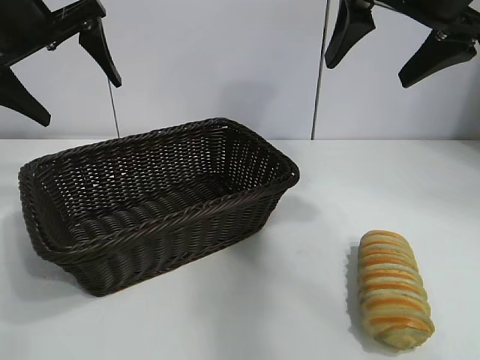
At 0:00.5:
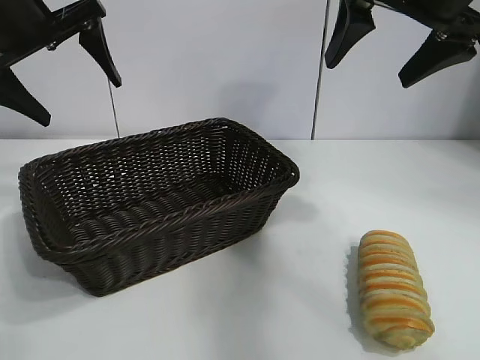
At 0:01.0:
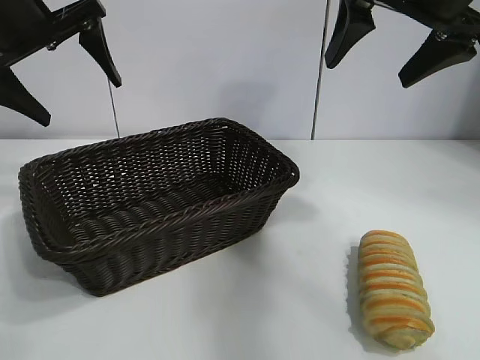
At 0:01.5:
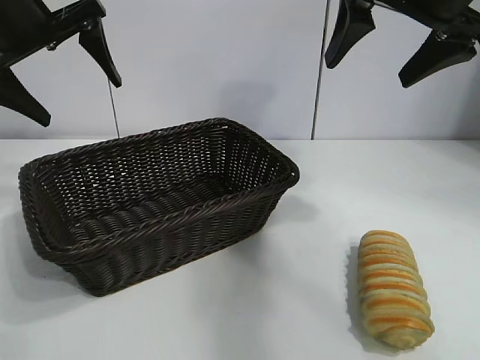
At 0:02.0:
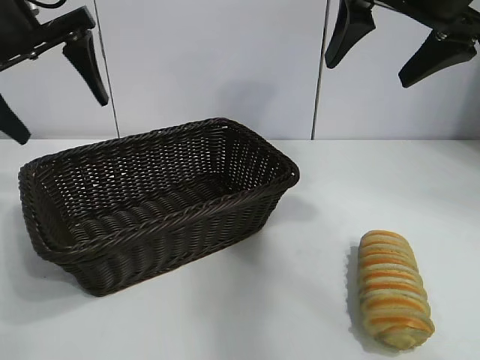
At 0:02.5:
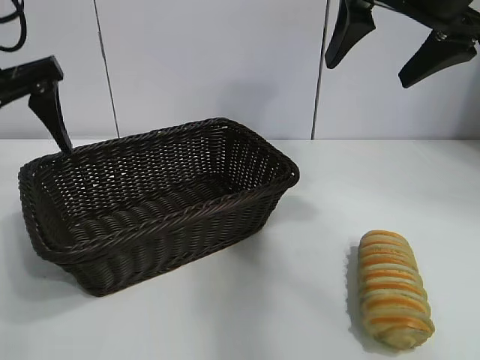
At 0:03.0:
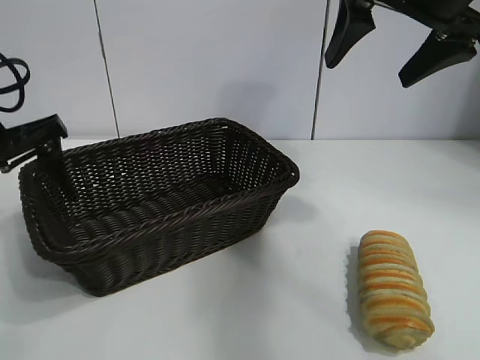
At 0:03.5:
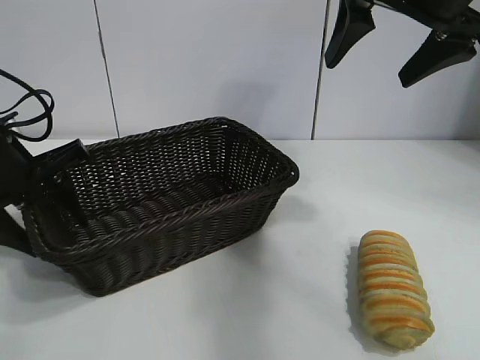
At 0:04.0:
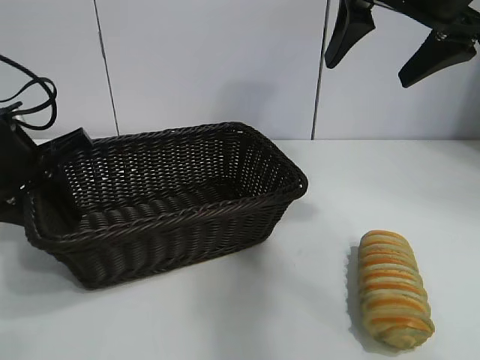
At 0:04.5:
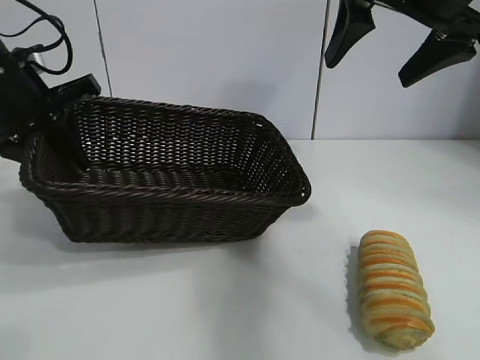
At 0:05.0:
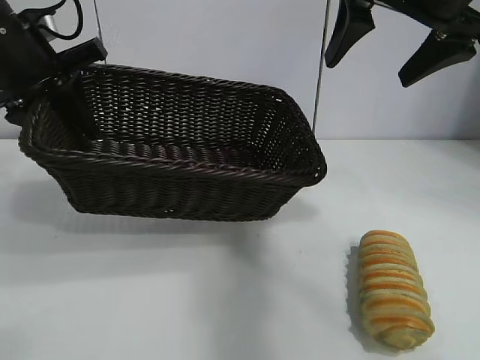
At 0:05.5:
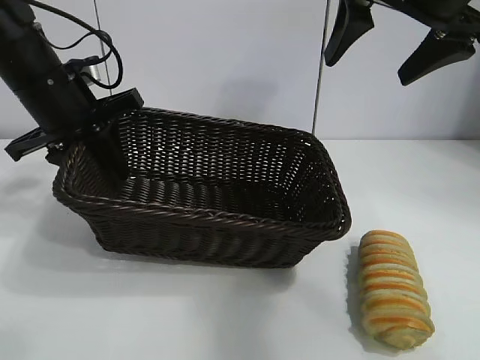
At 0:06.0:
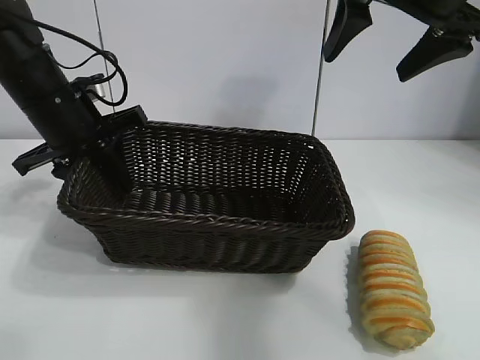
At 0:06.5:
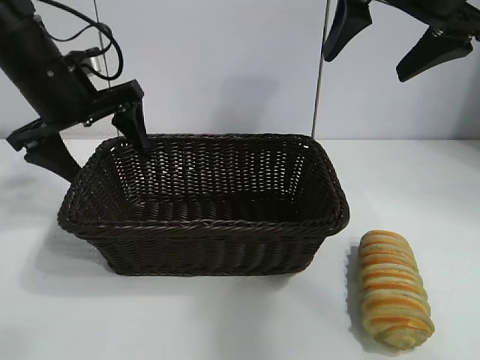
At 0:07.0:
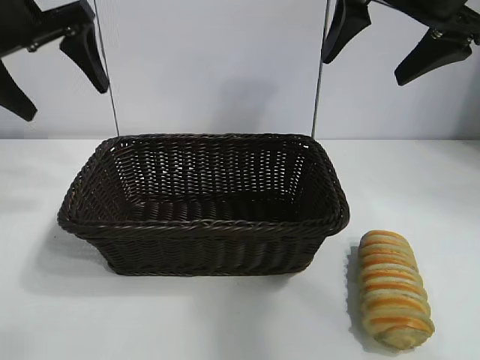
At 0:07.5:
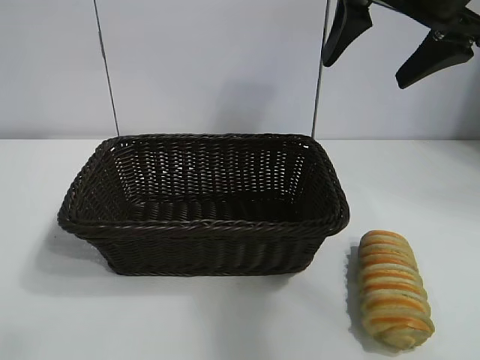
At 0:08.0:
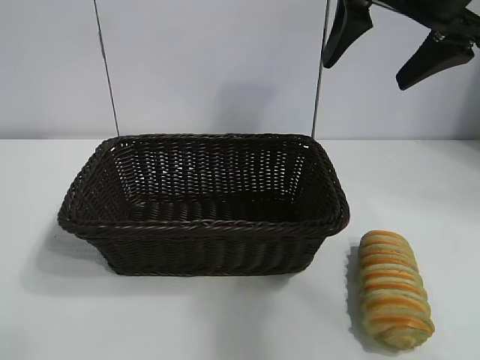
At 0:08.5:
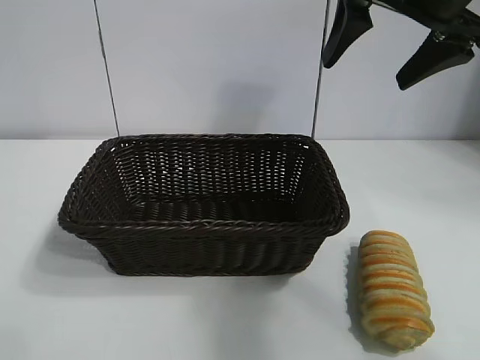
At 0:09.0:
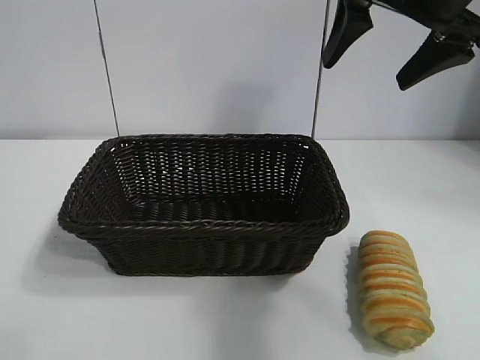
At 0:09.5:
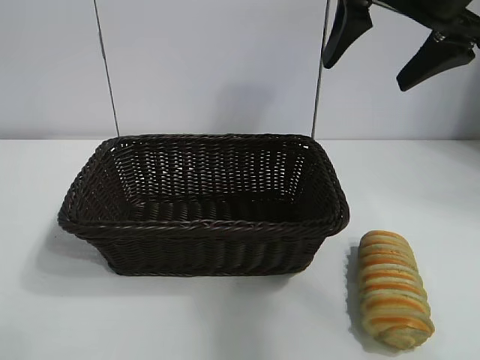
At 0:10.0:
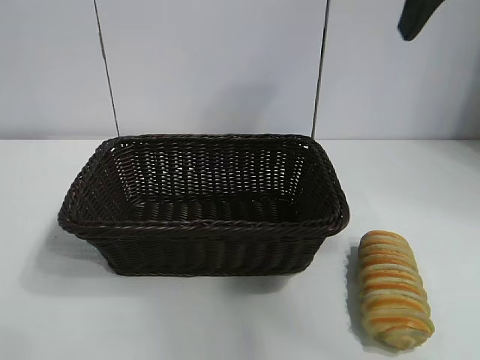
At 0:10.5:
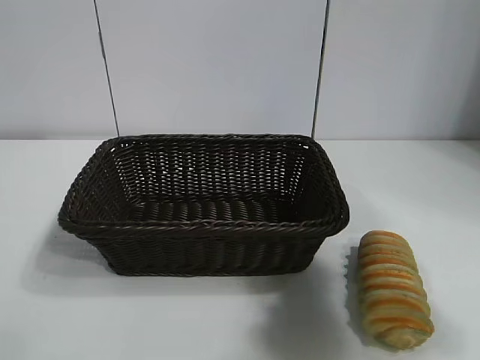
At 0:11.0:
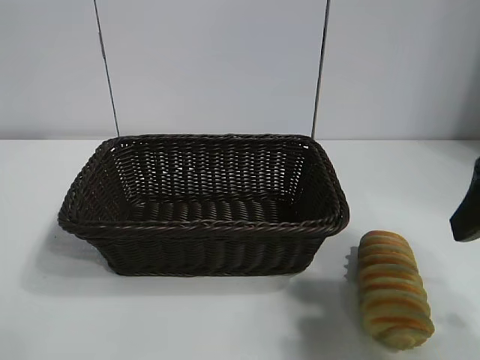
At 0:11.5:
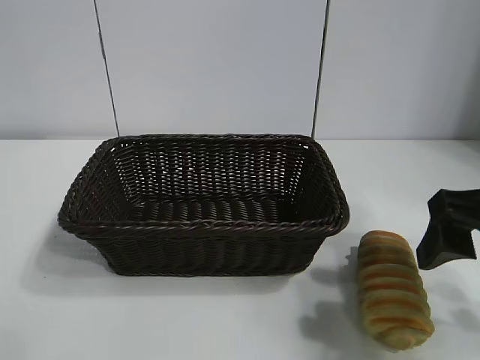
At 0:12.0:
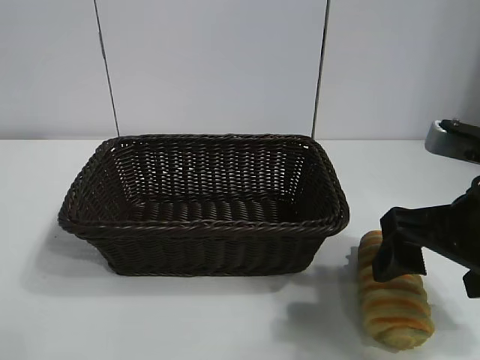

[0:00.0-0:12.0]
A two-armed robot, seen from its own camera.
Task of the whole recording: pick up the long bread and put it into the basket.
Step, 0:02.0 to 0:03.5: Grasp the basket with the left gripper.
Step, 0:04.0 to 0:06.0: Place the basket in the center of the table with the left gripper.

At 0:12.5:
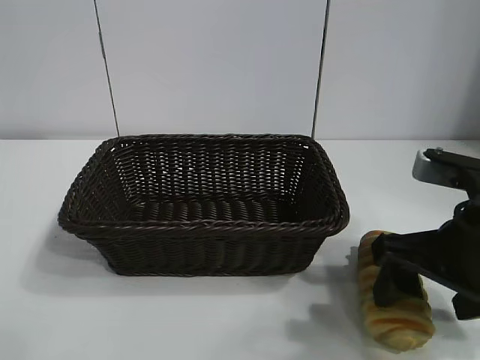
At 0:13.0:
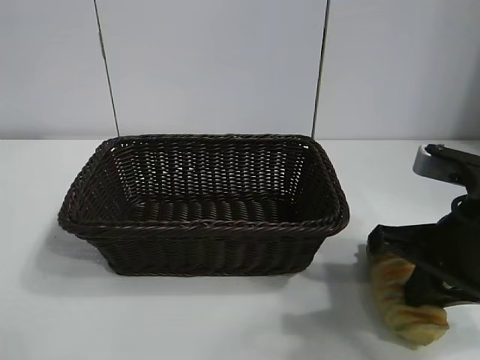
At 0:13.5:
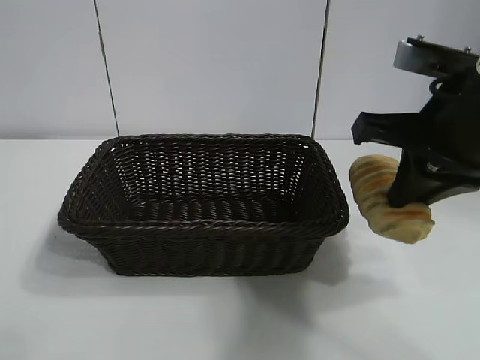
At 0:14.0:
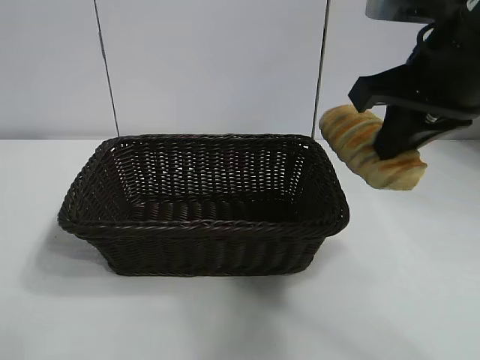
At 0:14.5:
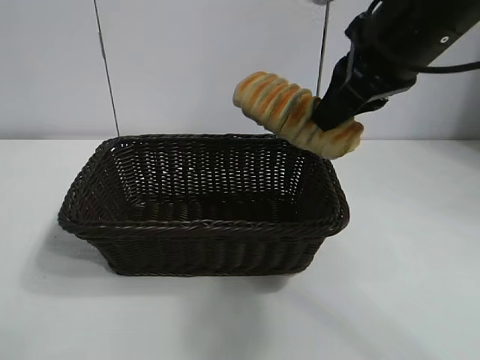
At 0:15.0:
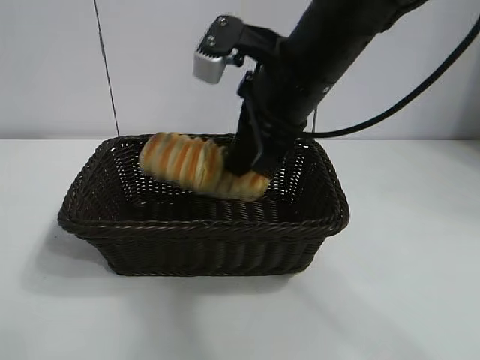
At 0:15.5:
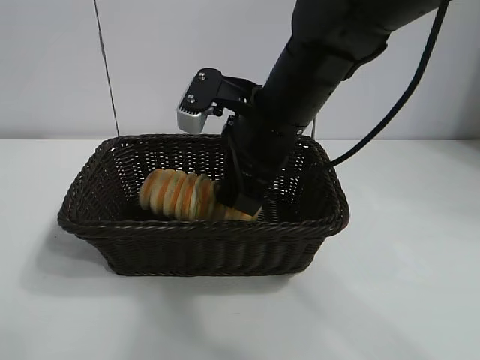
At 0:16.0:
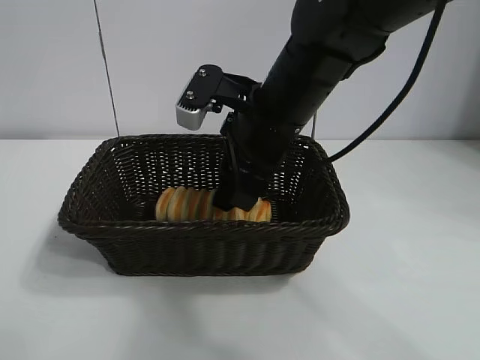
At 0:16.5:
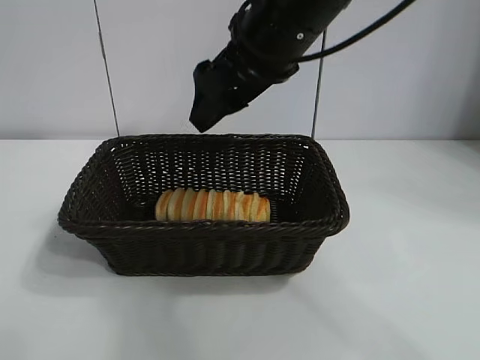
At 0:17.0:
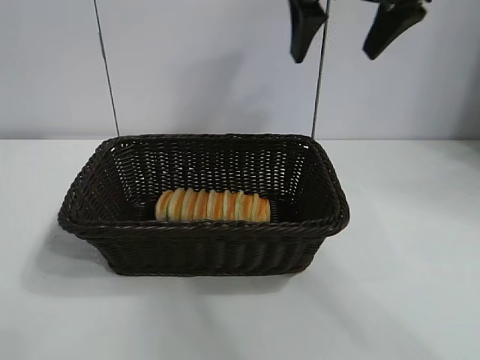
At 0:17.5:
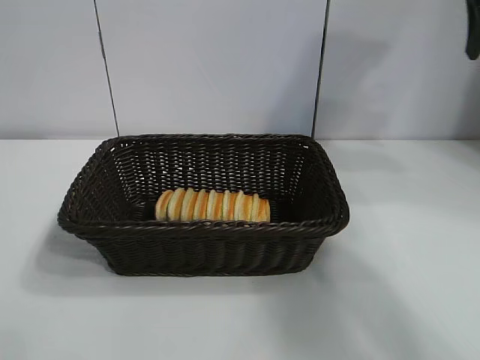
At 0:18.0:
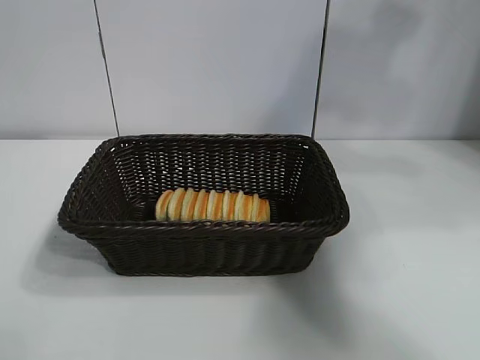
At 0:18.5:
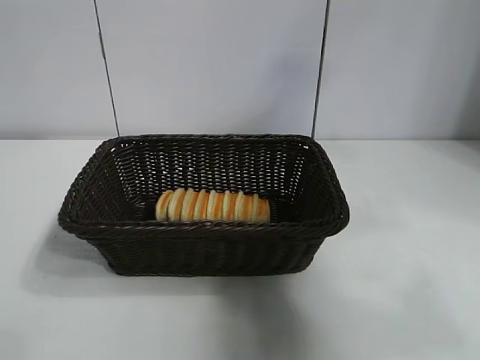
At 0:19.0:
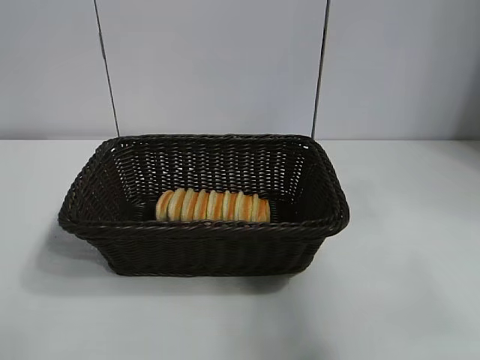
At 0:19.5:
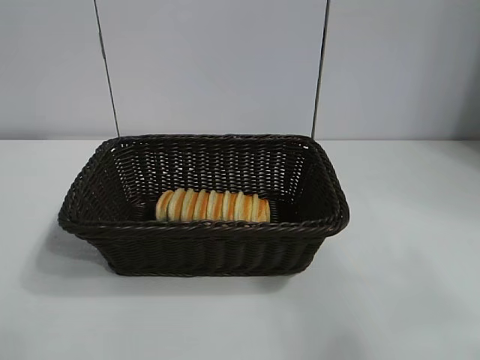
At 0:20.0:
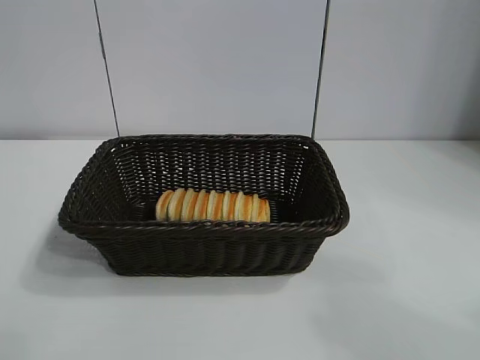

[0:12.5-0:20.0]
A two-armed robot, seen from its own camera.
Task of the whole recording: pick up the long bread and put it into the basket.
Step, 0:13.0 to 0:16.0: Place the long bread in the basket with right gripper.
